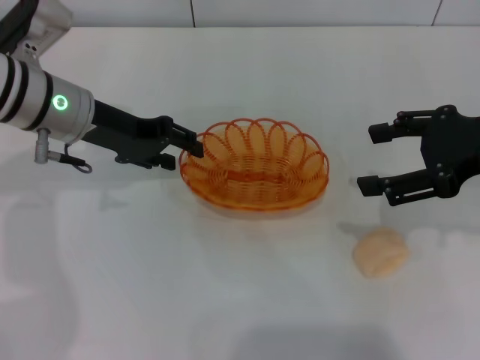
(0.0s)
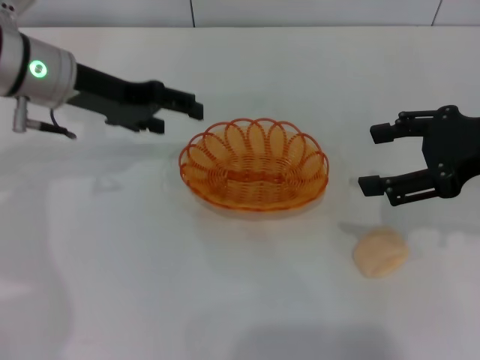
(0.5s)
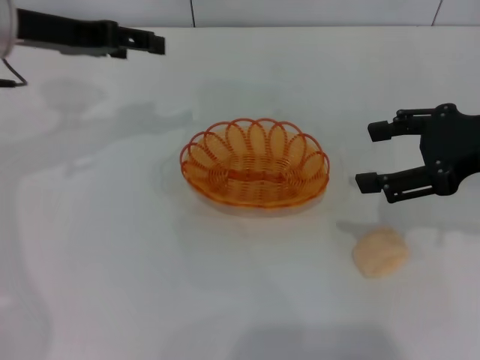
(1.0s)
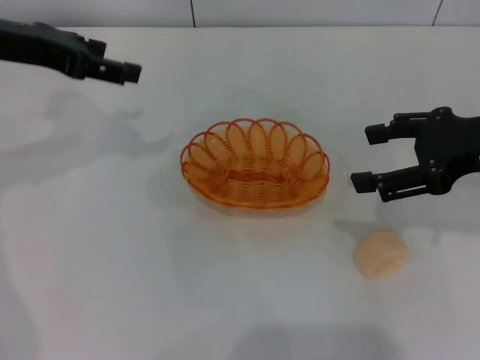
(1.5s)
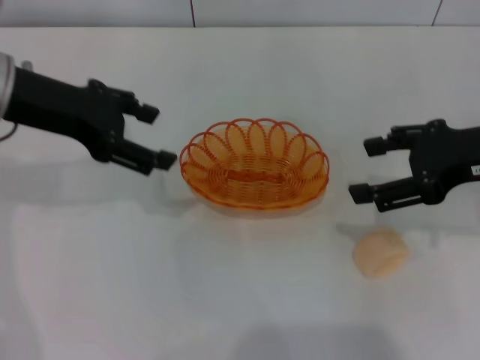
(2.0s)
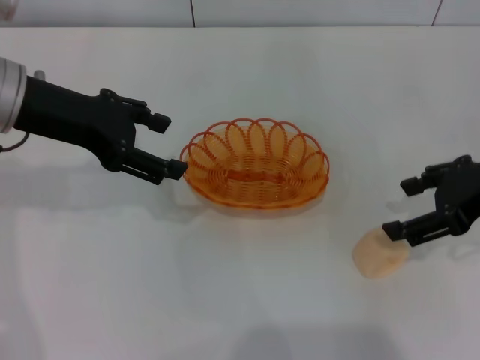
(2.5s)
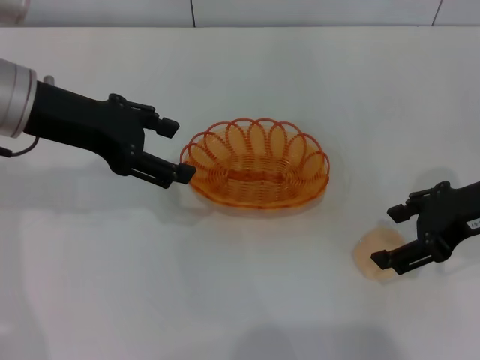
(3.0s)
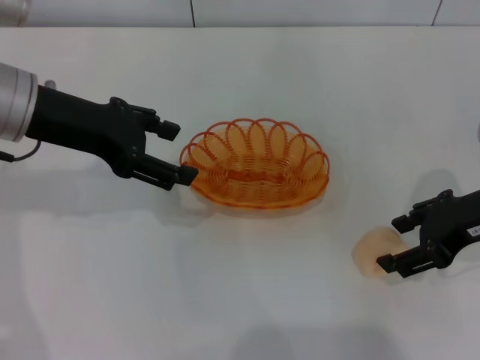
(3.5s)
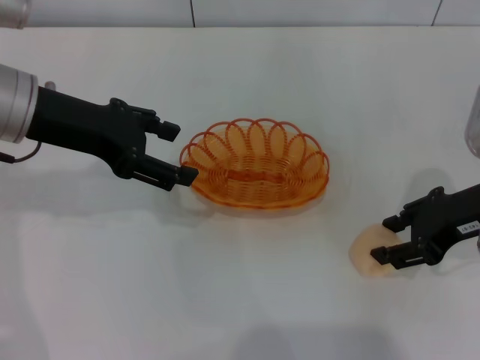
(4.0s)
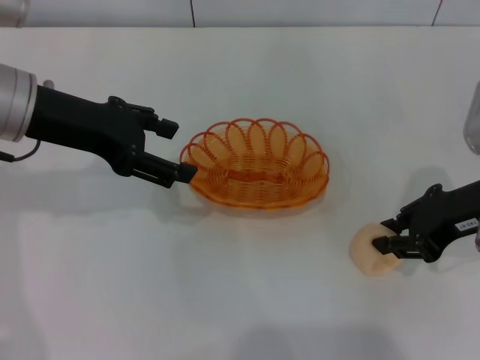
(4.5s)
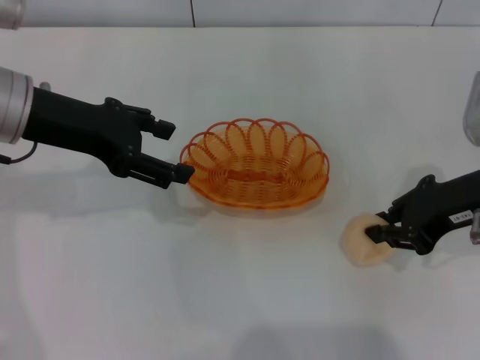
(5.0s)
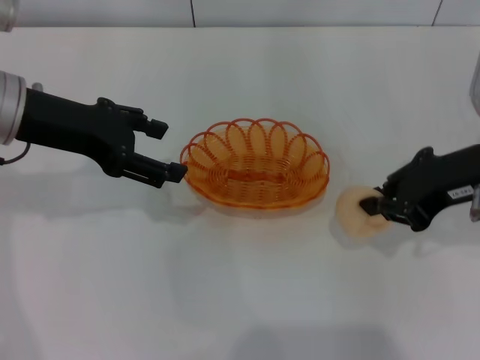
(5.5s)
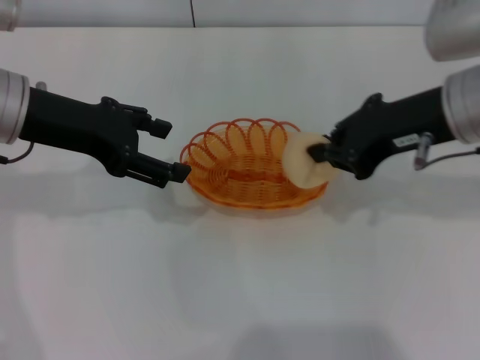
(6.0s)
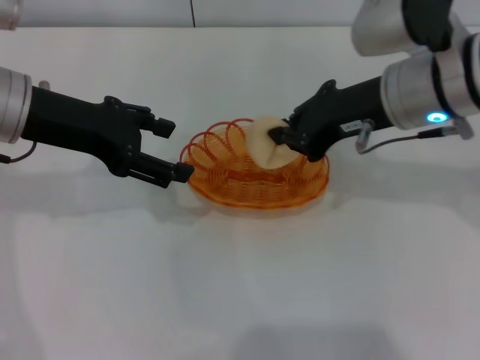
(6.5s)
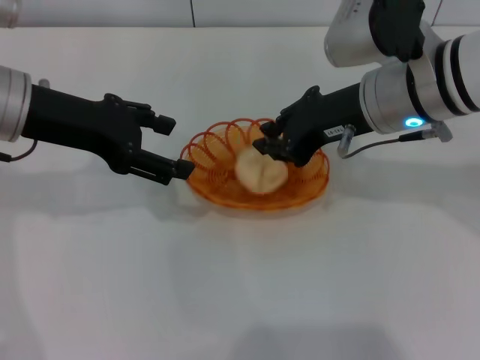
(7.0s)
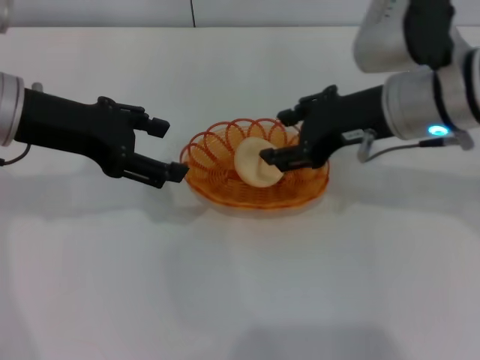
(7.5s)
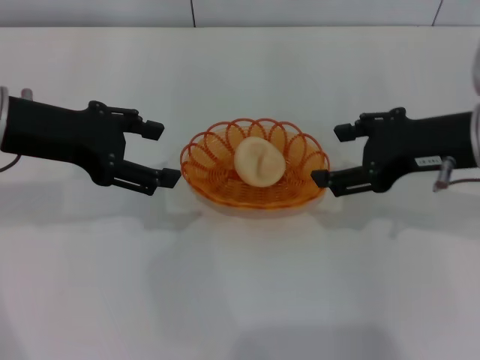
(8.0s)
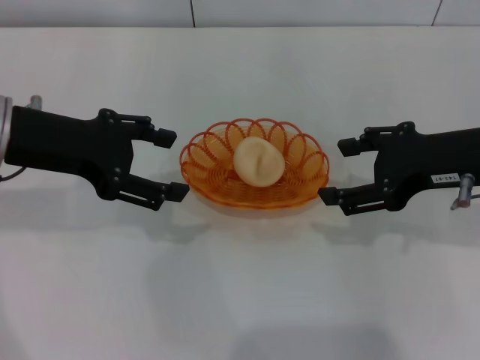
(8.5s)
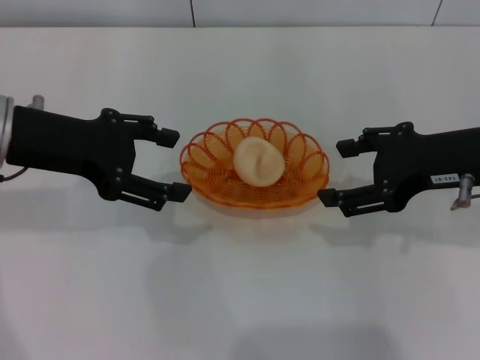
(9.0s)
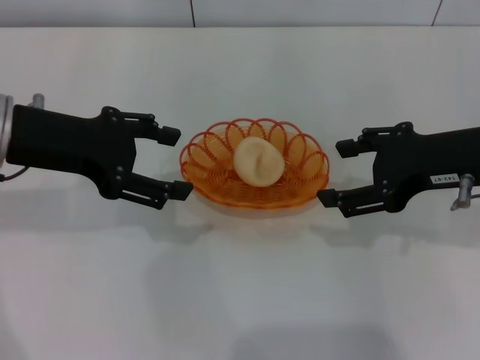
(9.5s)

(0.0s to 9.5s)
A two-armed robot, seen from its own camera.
Step, 0.5s - 5.5s: Pick up the egg yolk pastry with the right gripper.
Step, 6.0s - 7.5s: Place the egg yolk pastry into the basket with the right gripper.
0.0s - 2.0s: The left gripper goes approximately 5 cm upward, and opens up.
4.0s - 5.5s: The right gripper closes up.
5.5s - 7.5s: The right gripper heads to the left, covering roughly 5 cm, and opens up.
7.5s - 9.5s: The right gripper is displaced to the right by approximately 5 cm, and opens up.

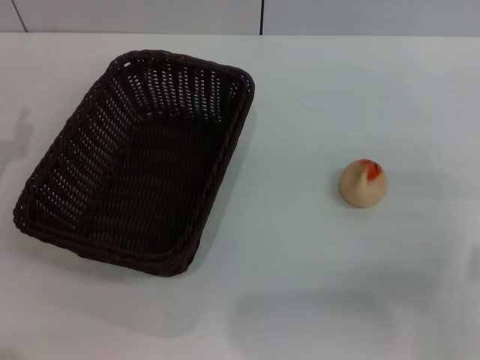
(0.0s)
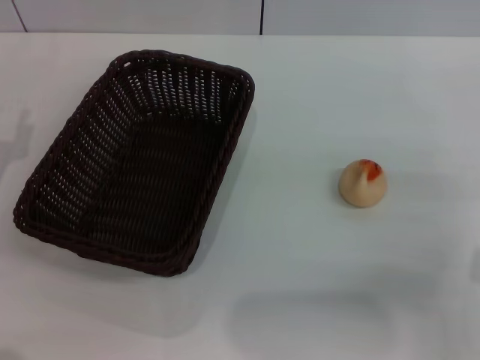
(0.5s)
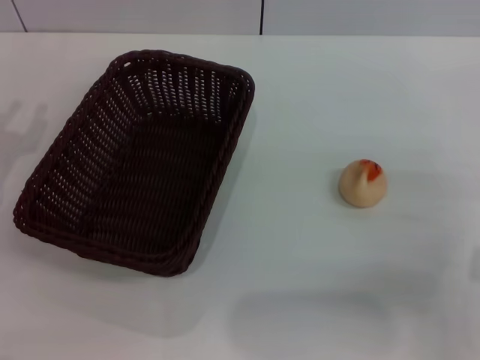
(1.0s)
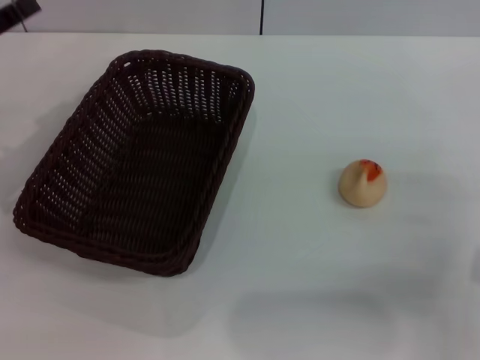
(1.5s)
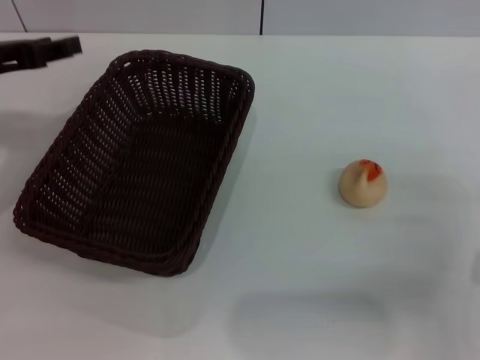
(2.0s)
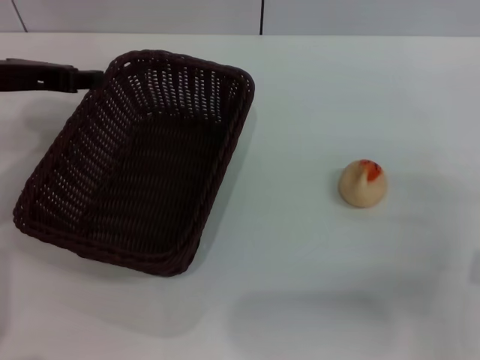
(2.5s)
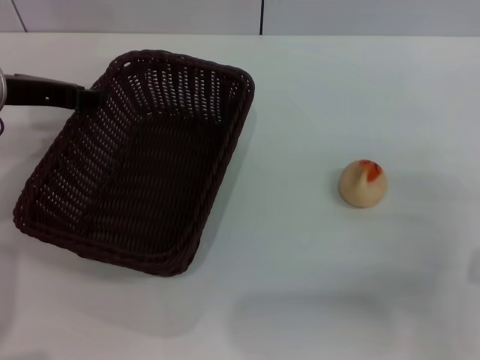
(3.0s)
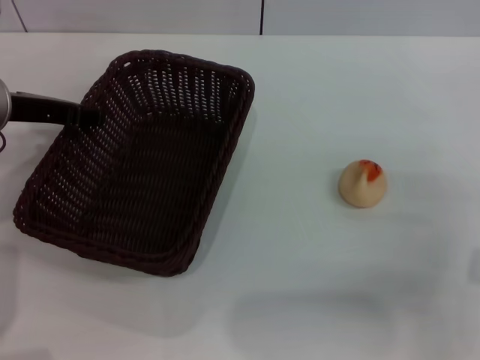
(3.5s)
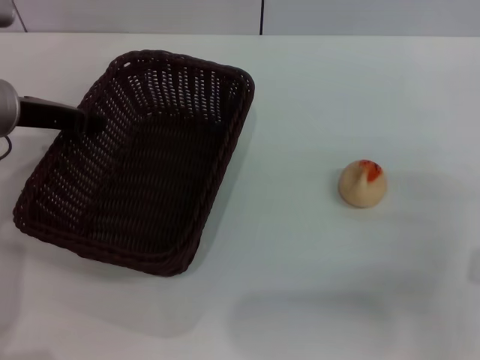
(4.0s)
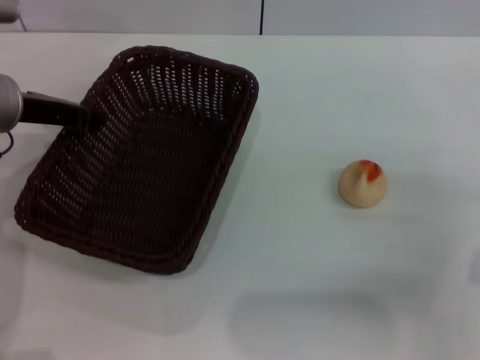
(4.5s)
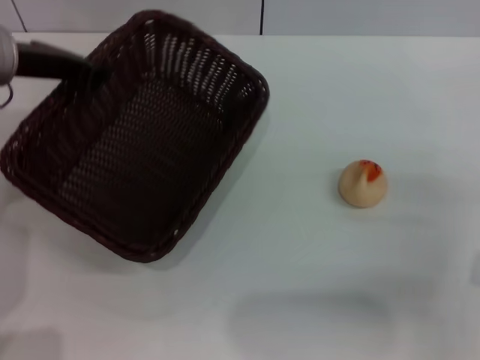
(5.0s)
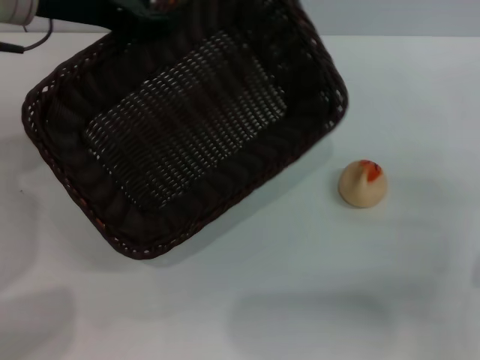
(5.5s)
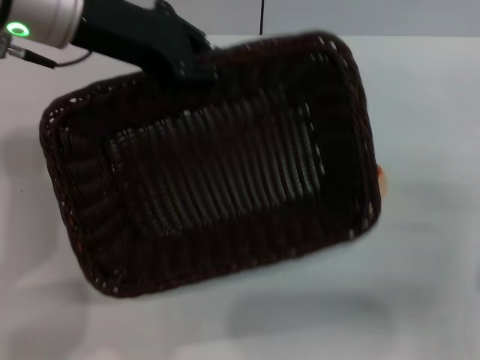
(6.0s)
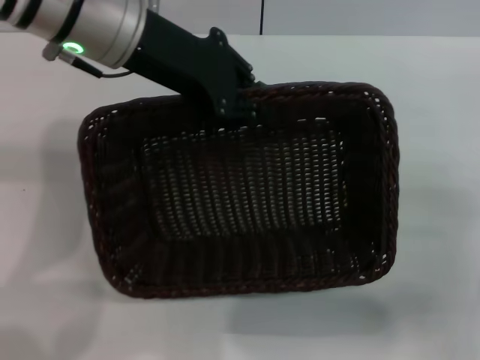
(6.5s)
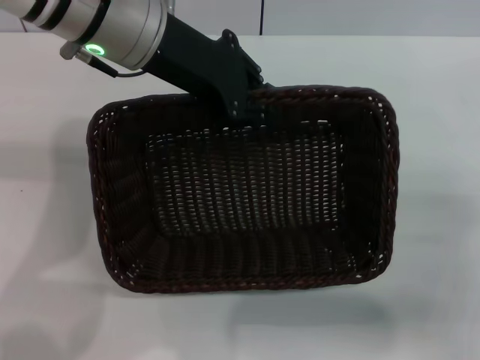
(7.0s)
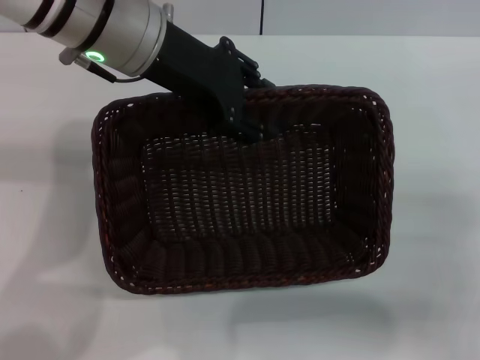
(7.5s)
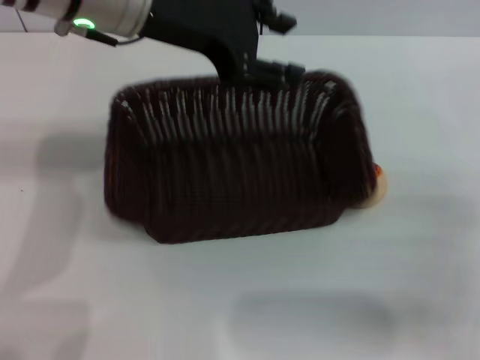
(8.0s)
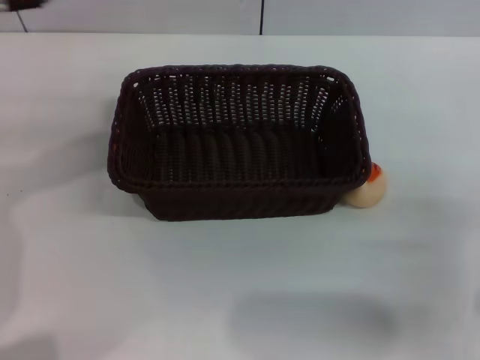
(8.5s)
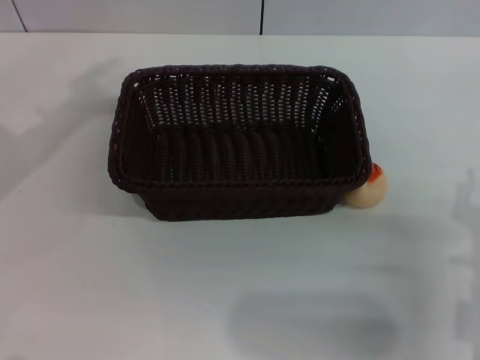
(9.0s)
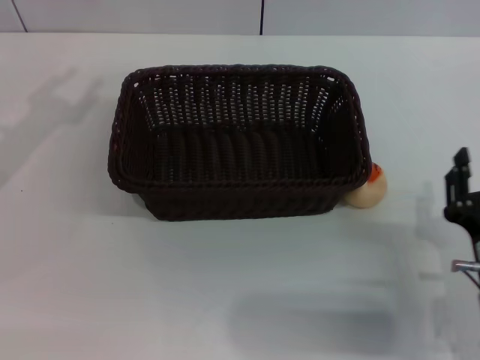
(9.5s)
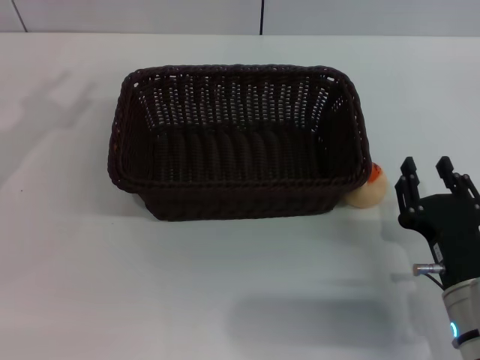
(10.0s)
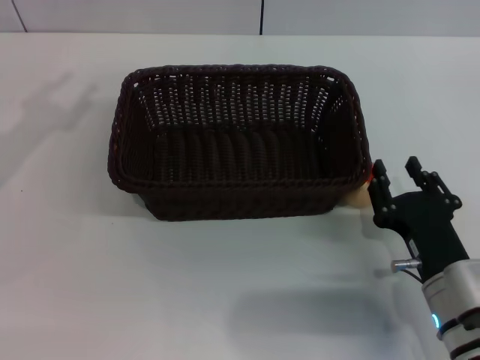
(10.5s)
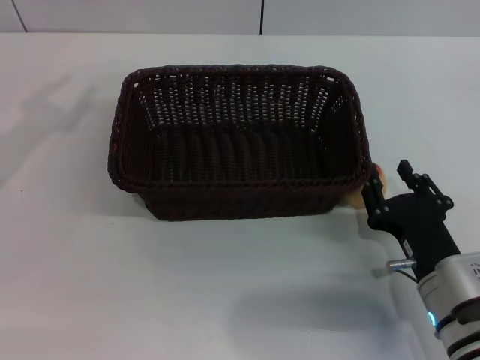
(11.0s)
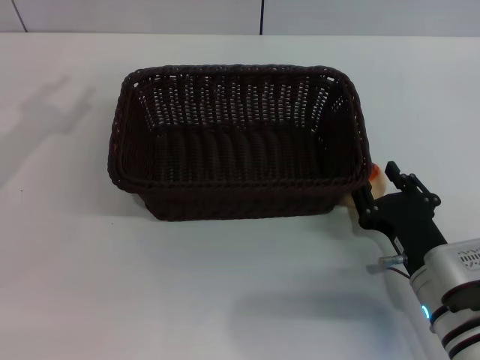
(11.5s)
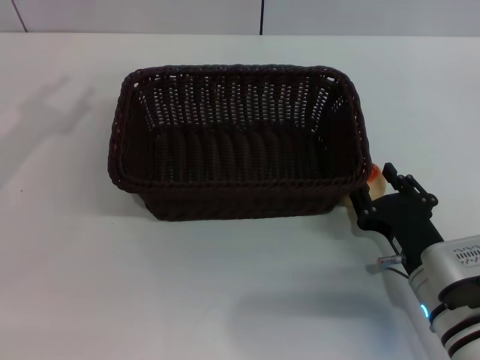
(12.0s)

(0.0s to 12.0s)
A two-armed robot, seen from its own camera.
Step, 0.0s - 8.0s: Move the basket to the center of view with the left gripper.
0.0s - 2.0s: The left gripper heads upward and forward, covering roughly 15 cm.
2.0s - 4.0s: The left gripper shifts by some 5 cm.
4.0s - 6.0s: The left gripper travels upward and to the right by roughly 15 cm.
6.0s - 8.0s: The left gripper moves approximately 5 cm, and opens up.
8.0s - 10.0s: The left gripper travels to the left by about 20 cm; the right gripper shifts some 10 cm to the left.
10.0s - 12.0s: The grippers make only small movements.

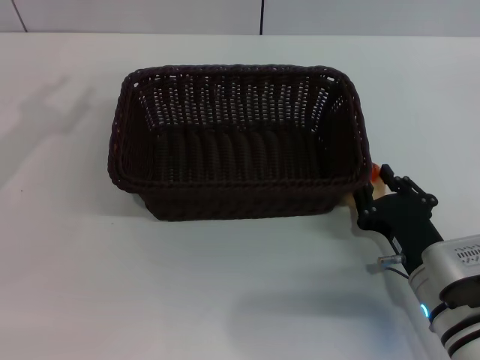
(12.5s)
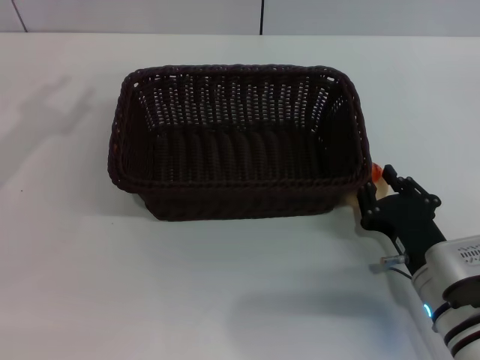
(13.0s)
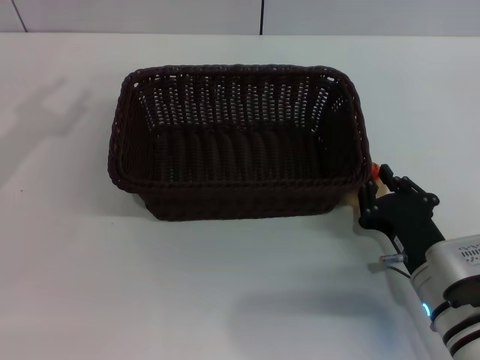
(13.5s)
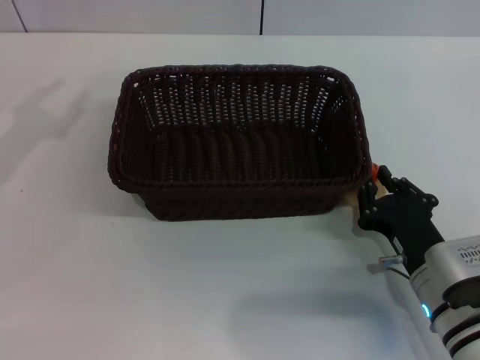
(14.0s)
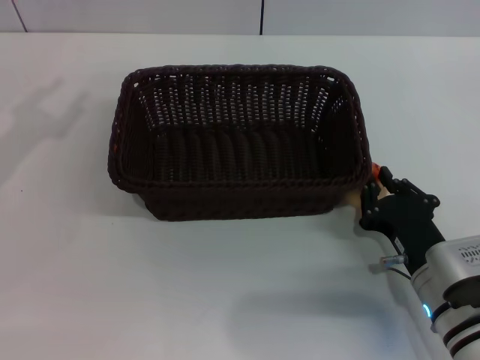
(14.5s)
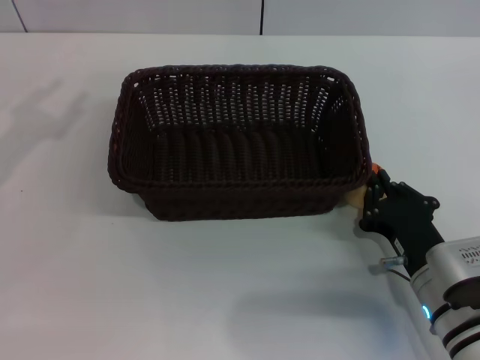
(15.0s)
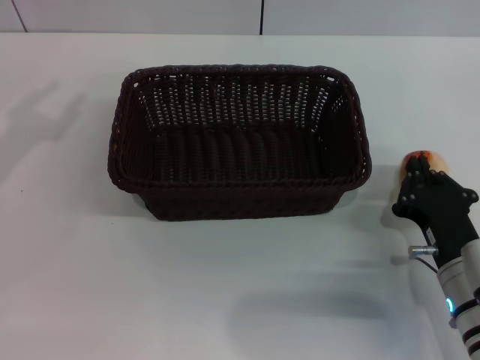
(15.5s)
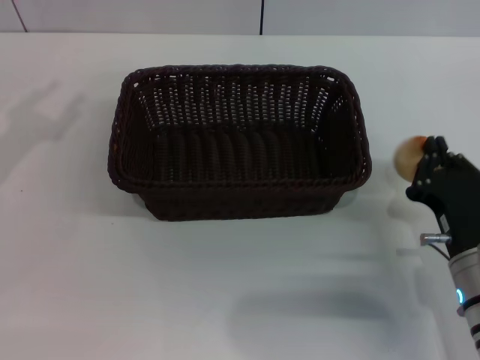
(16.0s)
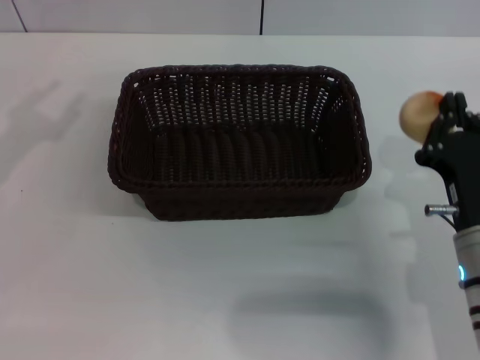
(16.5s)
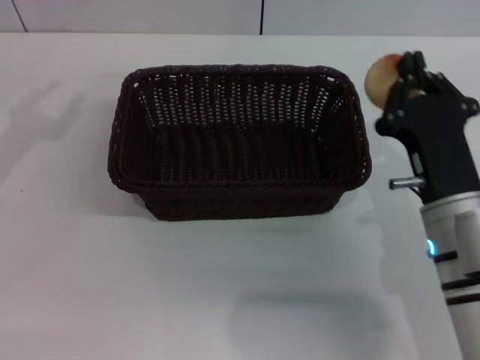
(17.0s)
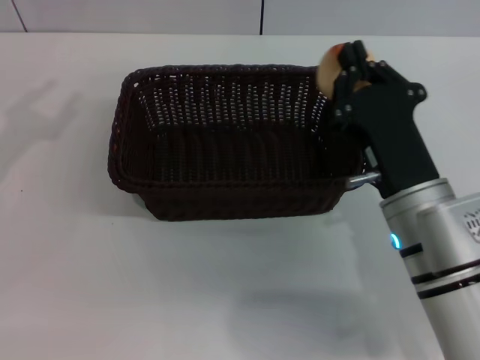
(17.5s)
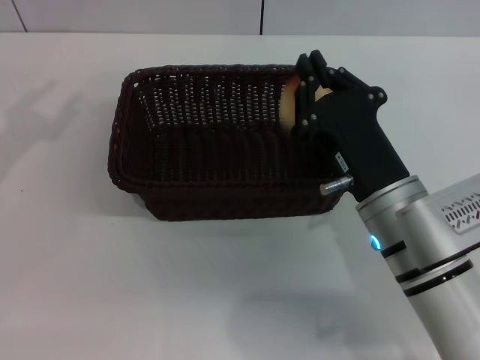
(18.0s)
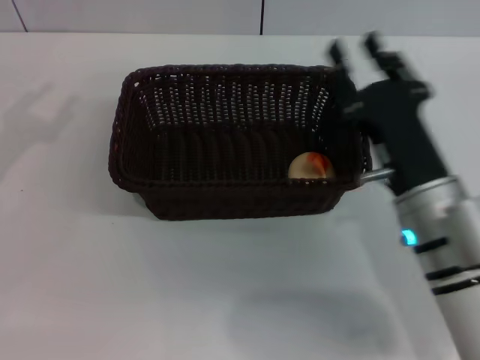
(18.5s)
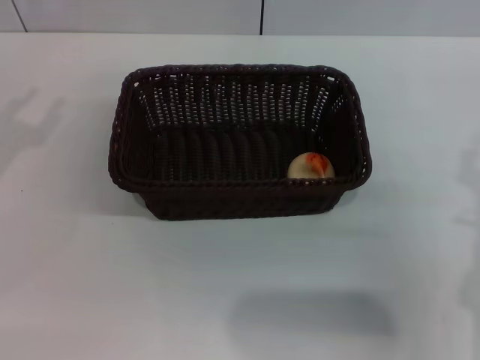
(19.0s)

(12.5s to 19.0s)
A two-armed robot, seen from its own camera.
Step, 12.5s - 15.5s: Pick up the egg yolk pastry with the right gripper.
Step, 16.0s - 18.0s: Place the egg yolk pastry into the basket with the right gripper.
12.5s - 14.5s: The right gripper closes up.
14.5s - 17.0s: The right gripper heads upward, covering some 5 cm.
17.0s - 19.0s: The right gripper shifts roughly 5 cm to the right, and opens up.
